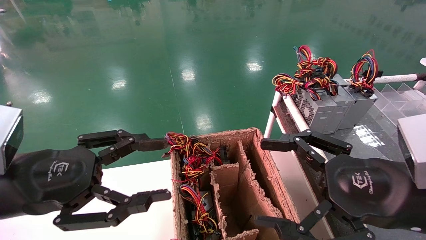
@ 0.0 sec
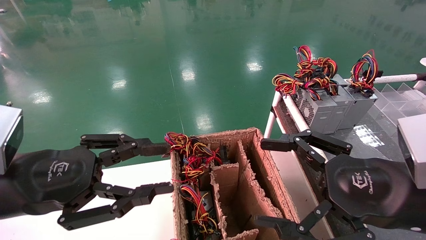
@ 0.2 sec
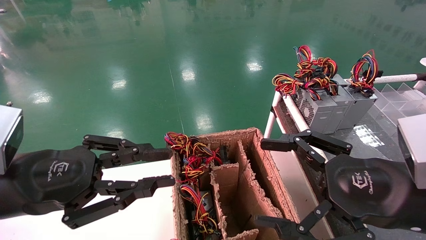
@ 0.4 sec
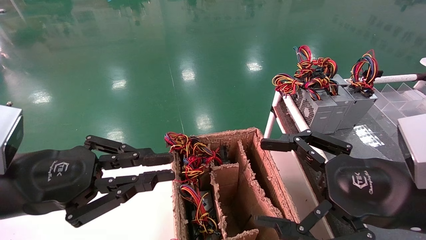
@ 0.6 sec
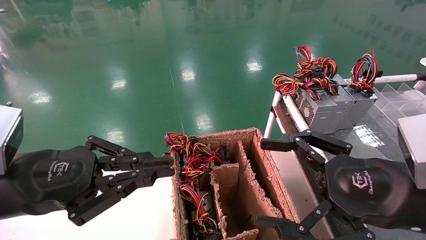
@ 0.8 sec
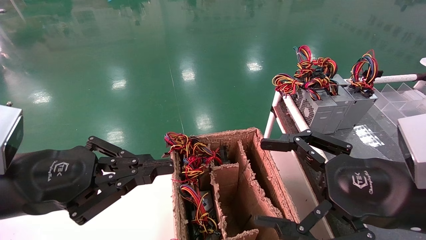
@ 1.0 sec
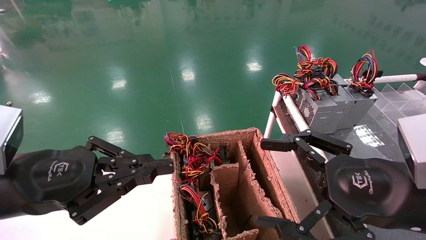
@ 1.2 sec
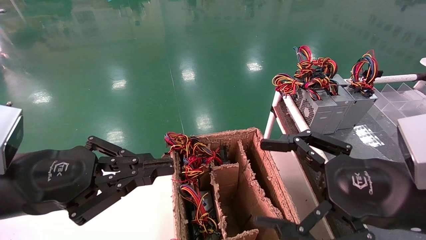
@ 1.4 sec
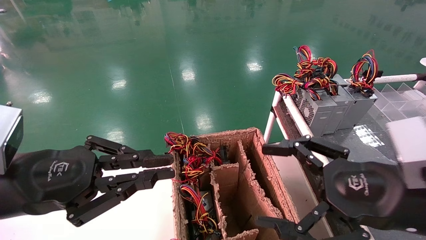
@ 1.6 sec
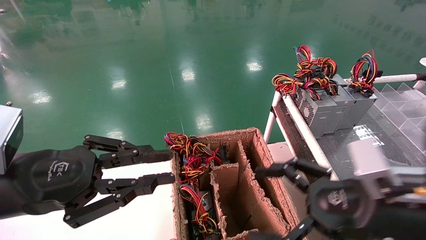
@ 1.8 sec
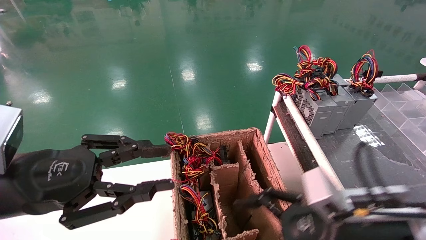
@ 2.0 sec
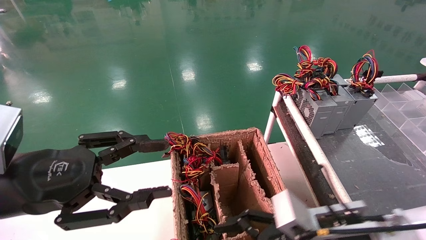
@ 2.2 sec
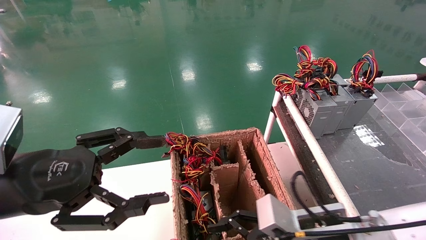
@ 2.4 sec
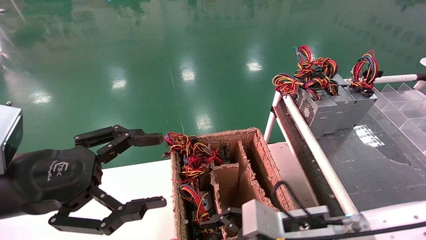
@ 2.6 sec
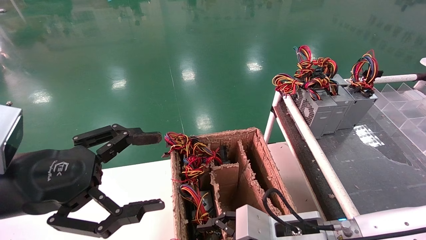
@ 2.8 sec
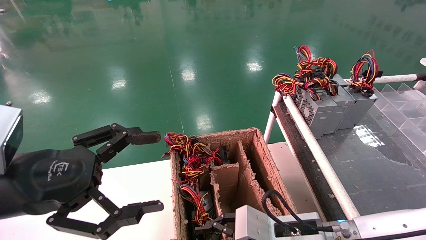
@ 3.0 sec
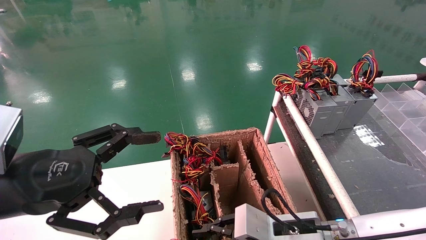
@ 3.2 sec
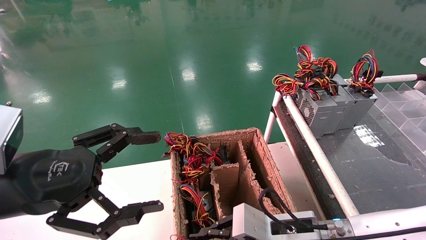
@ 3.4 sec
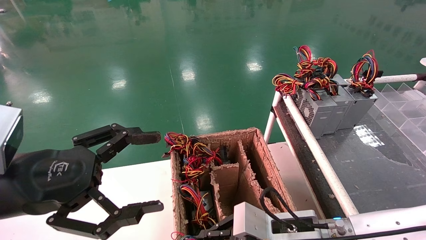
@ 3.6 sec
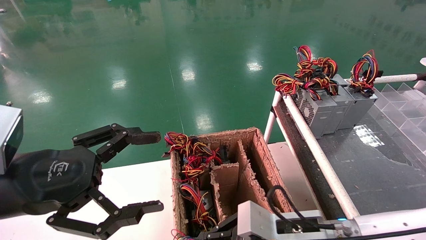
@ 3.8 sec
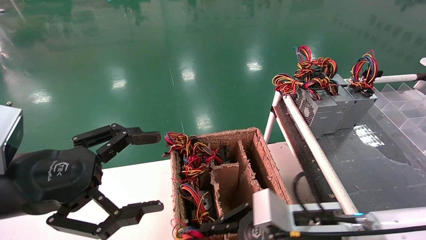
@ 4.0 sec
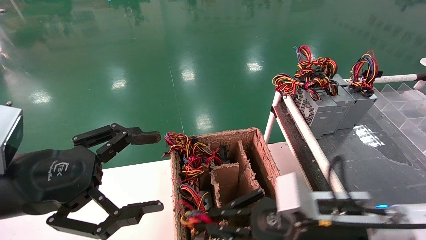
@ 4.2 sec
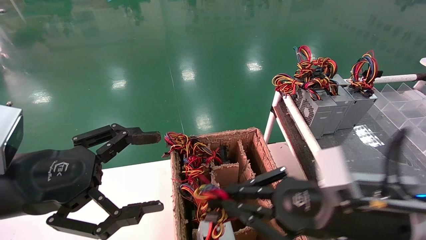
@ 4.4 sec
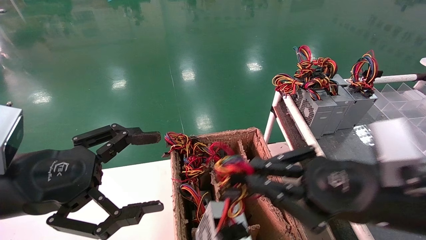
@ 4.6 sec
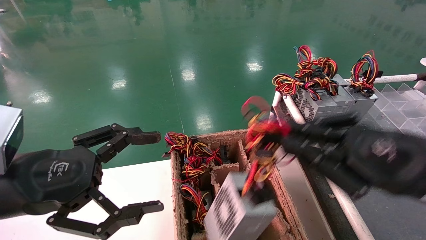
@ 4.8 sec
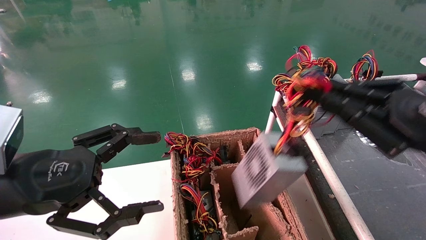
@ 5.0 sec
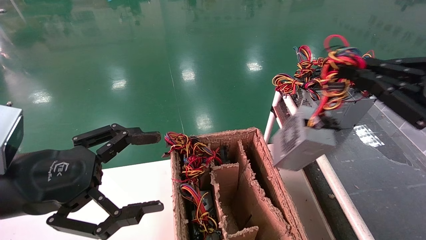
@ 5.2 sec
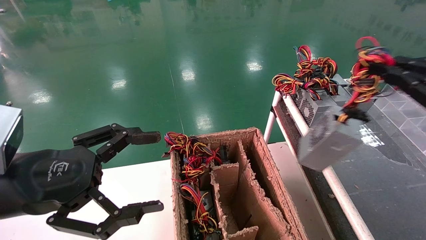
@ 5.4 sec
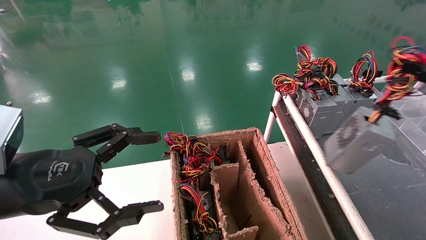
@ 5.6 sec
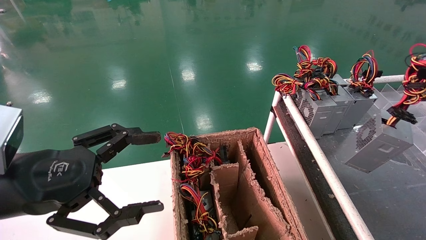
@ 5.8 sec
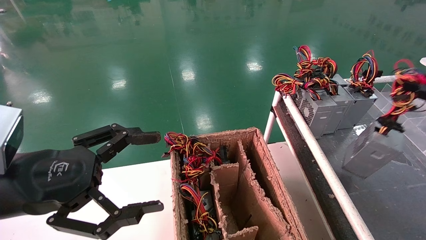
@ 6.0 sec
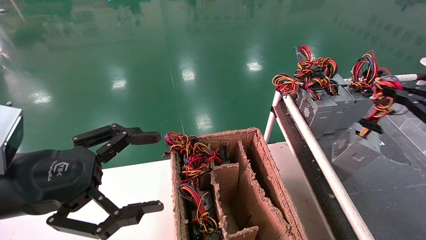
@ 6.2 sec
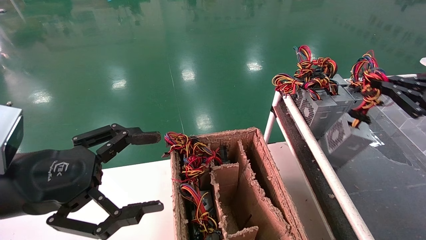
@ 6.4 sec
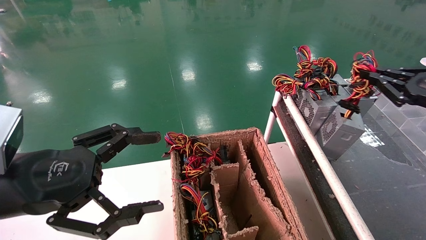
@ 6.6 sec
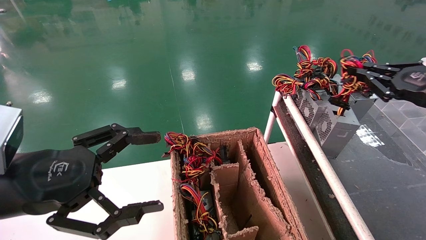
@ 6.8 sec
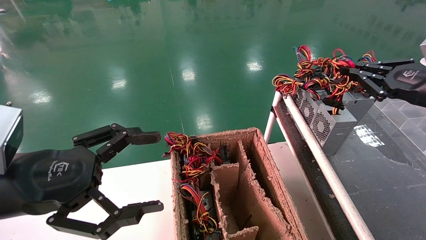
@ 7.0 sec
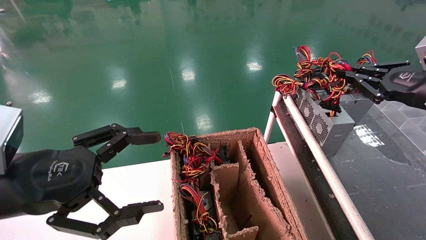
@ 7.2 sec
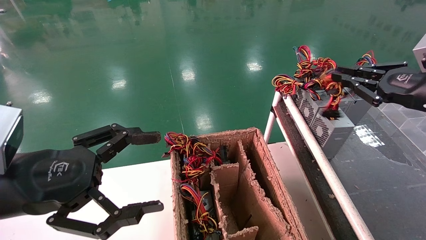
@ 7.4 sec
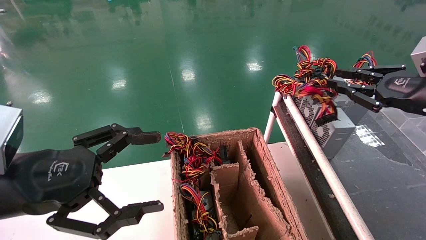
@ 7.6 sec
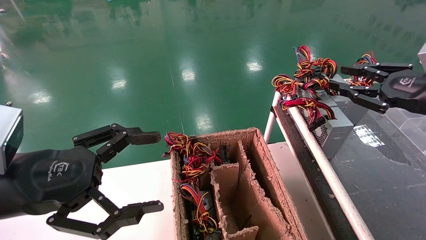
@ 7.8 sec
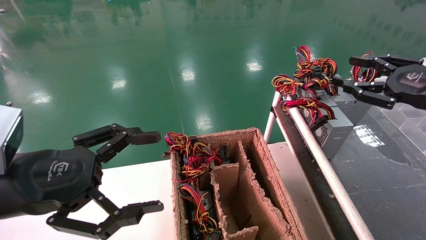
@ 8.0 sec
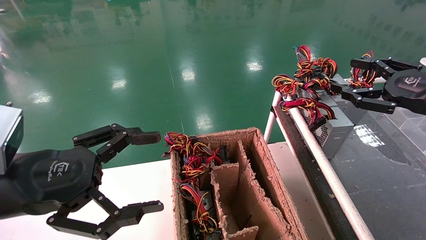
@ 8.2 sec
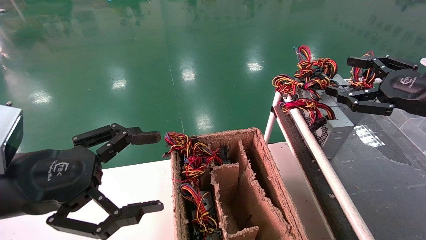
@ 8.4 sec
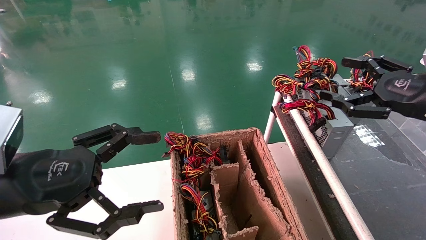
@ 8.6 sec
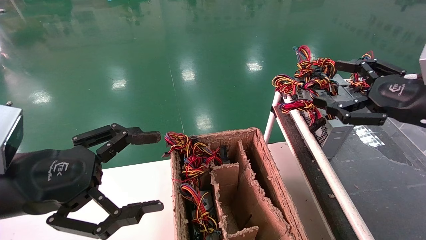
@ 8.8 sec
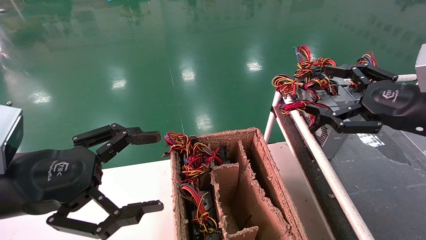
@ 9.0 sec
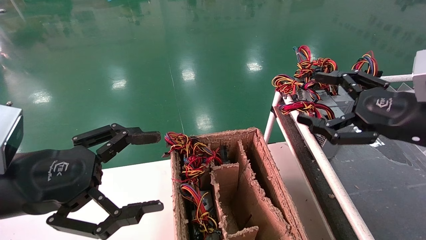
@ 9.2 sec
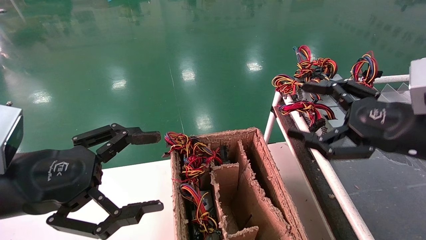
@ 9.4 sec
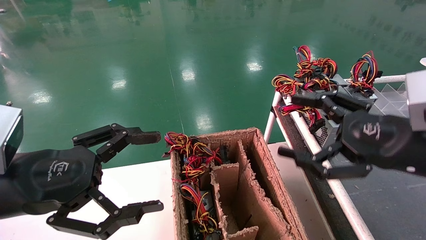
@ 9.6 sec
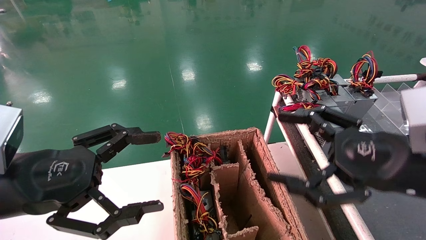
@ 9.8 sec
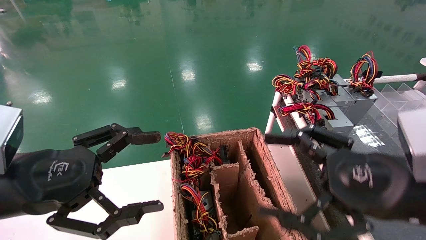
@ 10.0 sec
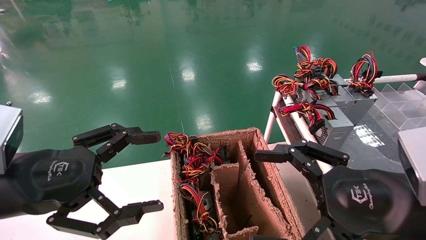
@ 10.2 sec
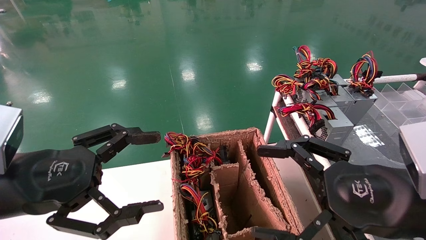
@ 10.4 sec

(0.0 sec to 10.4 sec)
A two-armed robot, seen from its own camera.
Step, 1.0 sec - 3.6 sec: Grab and lift the power supply from the large box.
Step, 3.8 sec - 7.6 sec: Place the power supply on the operating table.
0.0 sec - 1.4 sec: The left gripper closes up.
1.4 sec - 3.0 sec: The left gripper opens. The right gripper moves downward, to the left and forward, approximately 20 cm.
3.0 sec - 4.4 sec: The right gripper travels upward and to the right by roughly 10 cm, and closes up.
4.4 sec - 6.0 sec: The right gripper shifts approximately 25 cm to the right.
6.0 sec - 7.4 sec: The right gripper is displaced forward and to the left by some 10 cm.
7.4 sec - 9.0 sec: The right gripper heads to the left, covering about 5 cm, and opens its fingers.
9.0 sec - 10.4 sec: The right gripper heads backward, to the left and downward, covering approximately 15 cm.
